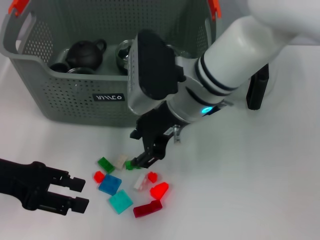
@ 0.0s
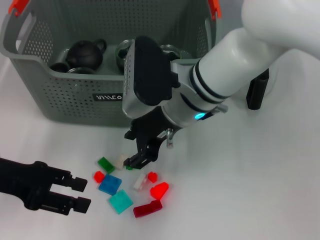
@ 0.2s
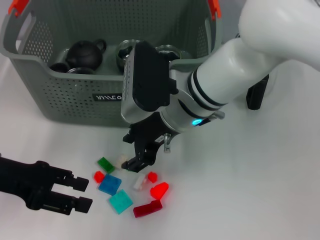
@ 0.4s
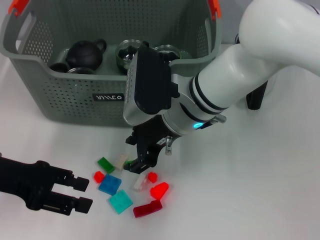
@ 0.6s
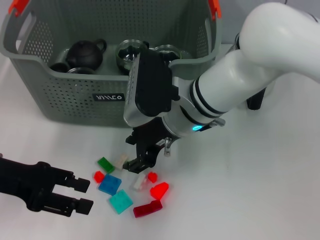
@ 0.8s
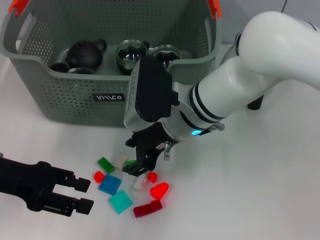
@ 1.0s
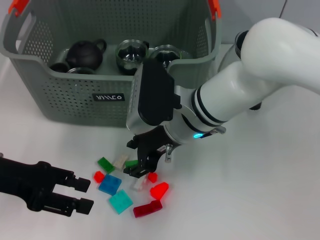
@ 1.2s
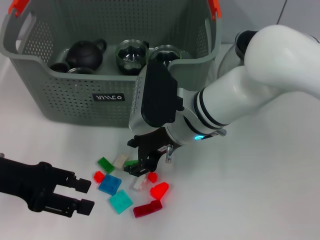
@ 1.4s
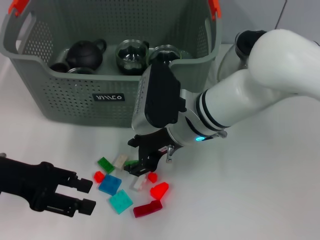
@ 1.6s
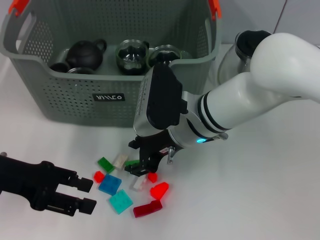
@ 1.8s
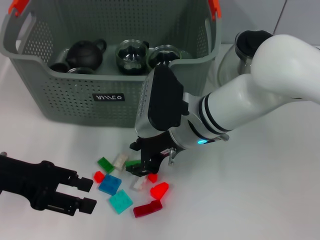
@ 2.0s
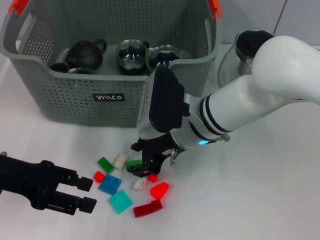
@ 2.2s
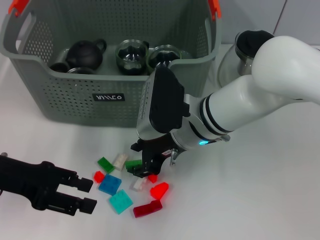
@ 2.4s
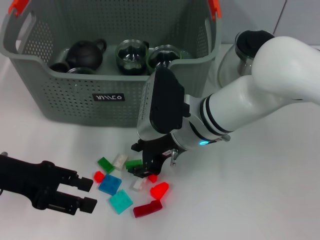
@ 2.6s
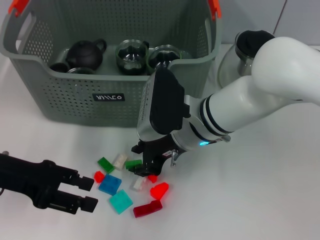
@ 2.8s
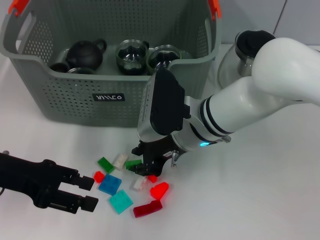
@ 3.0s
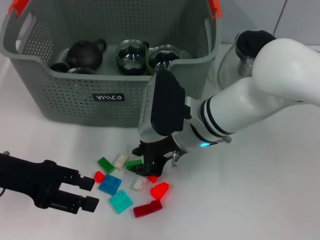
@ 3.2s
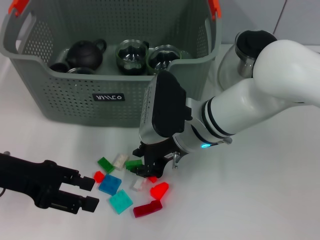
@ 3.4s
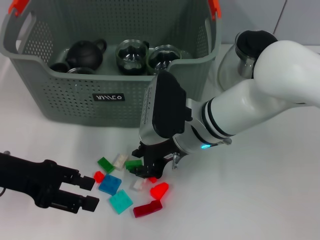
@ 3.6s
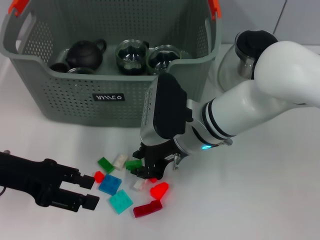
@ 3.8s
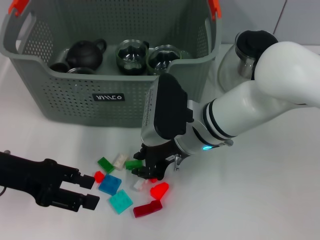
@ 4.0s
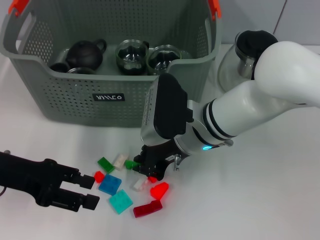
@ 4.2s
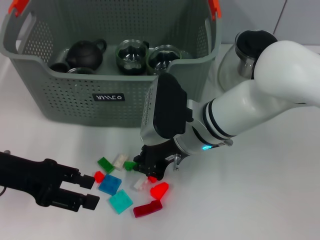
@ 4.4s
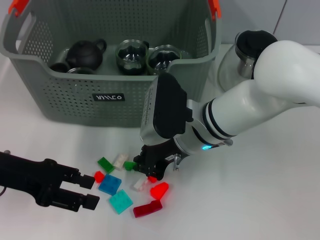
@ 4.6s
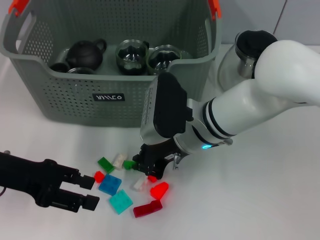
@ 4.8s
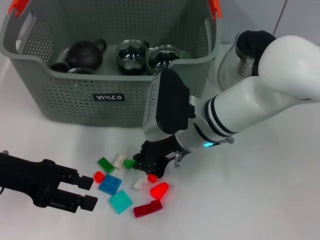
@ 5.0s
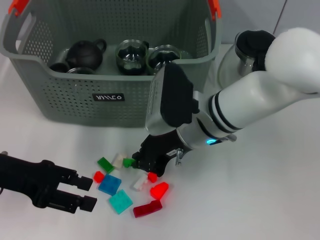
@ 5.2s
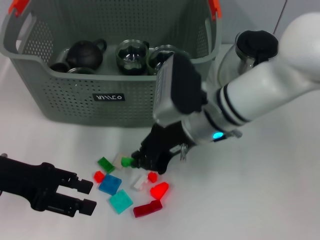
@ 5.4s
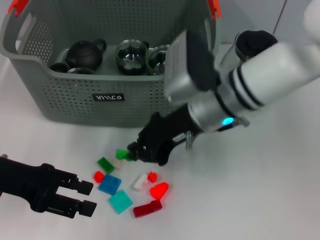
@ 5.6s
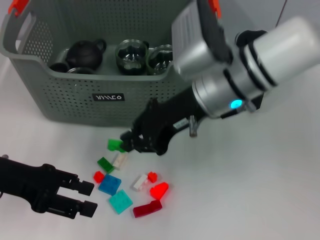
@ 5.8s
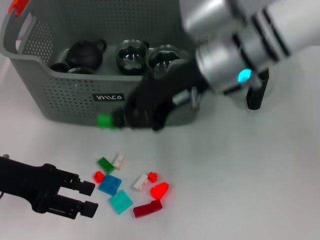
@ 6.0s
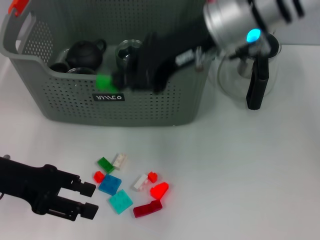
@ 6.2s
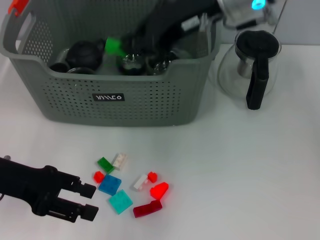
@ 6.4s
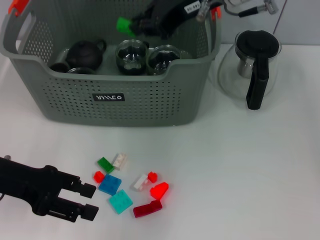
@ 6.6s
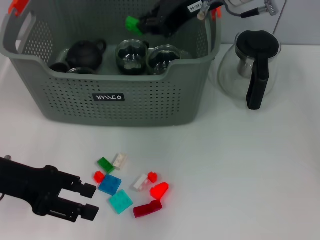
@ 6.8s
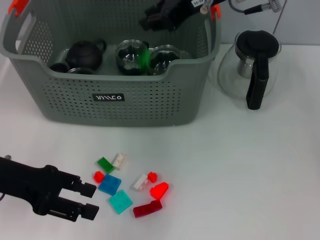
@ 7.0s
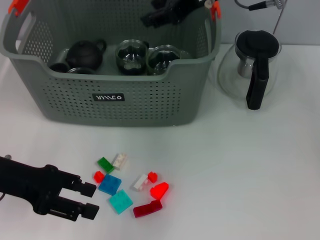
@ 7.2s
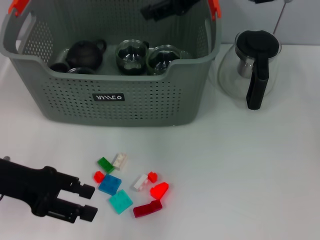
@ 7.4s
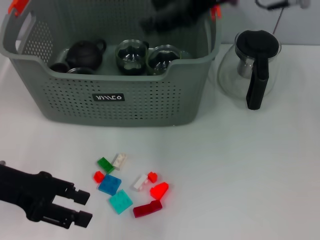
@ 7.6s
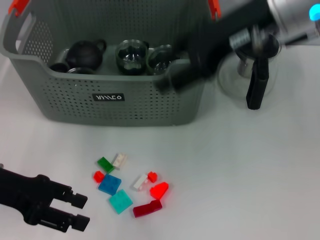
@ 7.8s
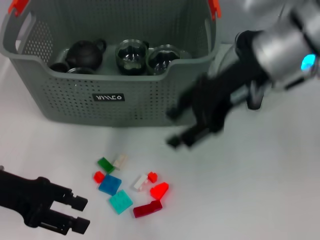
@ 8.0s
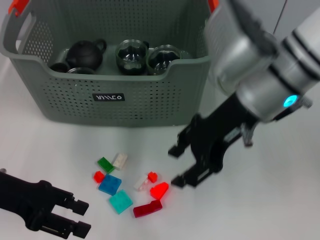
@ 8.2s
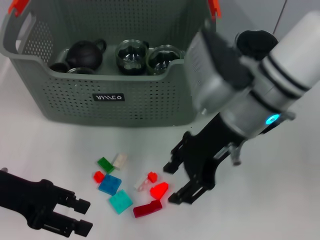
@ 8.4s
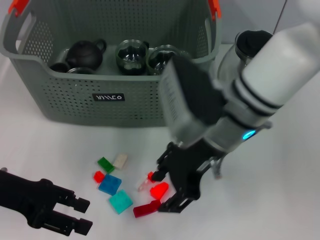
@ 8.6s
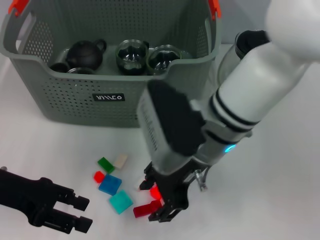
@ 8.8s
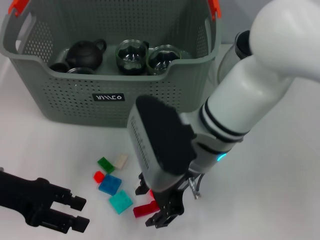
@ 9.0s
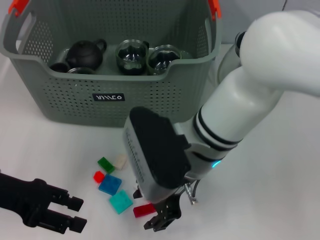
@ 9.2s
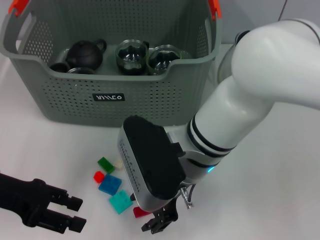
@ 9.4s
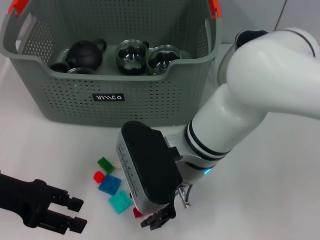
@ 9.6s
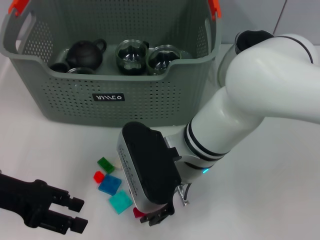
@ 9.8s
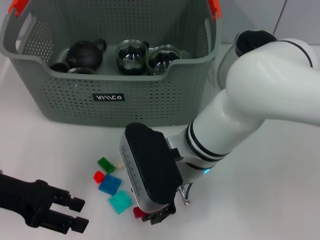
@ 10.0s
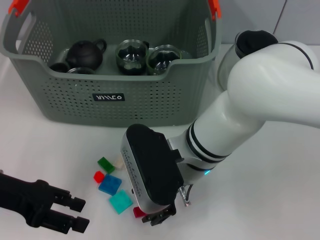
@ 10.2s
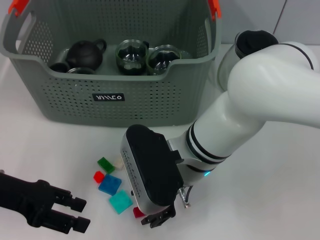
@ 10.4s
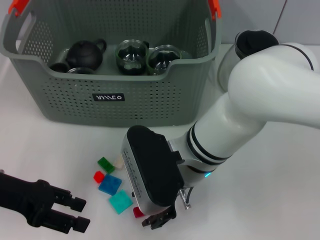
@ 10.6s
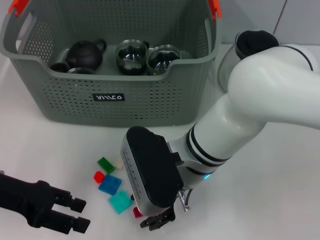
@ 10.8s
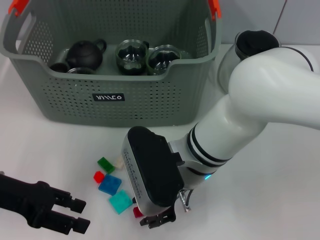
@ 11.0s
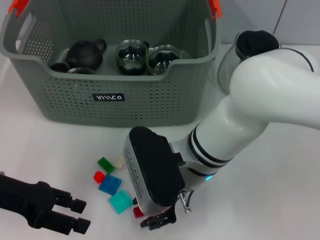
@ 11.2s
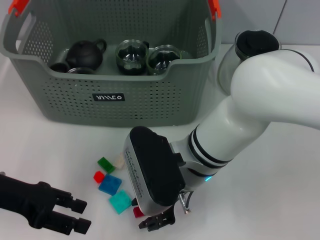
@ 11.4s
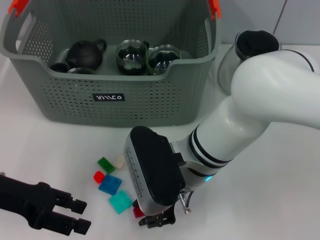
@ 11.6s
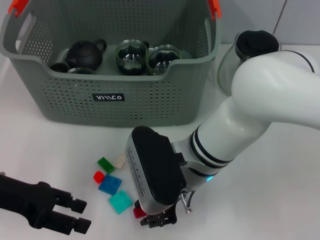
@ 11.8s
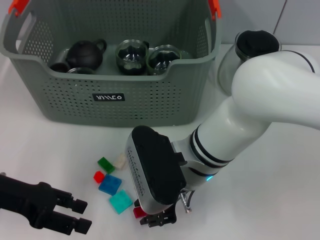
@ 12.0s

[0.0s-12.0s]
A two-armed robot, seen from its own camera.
Task of the whole recording: pick up the teacup on the table and place it into the storage bin, pick up the block on the table and place it into the storage bin.
Step, 0.0s to 5.4s: Grasp the green block with right gripper.
Step, 5.6s to 7.0s: Place the green block in the storage box with right gripper.
0.0s to 1.6s: The right gripper travels downward by approximately 5 cm.
1.6s to 3.0s: Both grippers stay put.
3.0s to 4.4s: Both grippers stay put.
4.4s to 6.0s: The right gripper moves upward, some 15 cm.
6.0s to 7.6s: The right gripper is displaced upward, forward and to the right by approximately 10 cm, and opens up.
7.6s to 9.0s: The right gripper is displaced downward, backward and to the left by roughly 20 cm.
10.4s to 12.0s: Both grippers stay put.

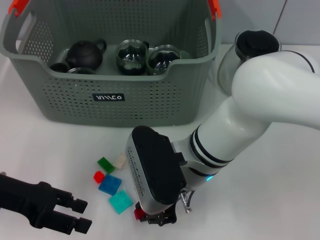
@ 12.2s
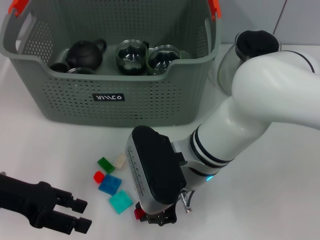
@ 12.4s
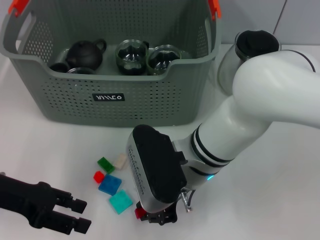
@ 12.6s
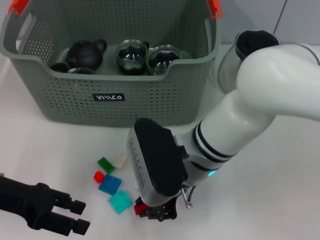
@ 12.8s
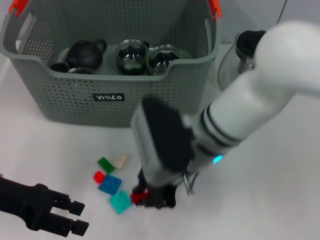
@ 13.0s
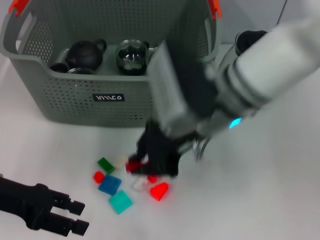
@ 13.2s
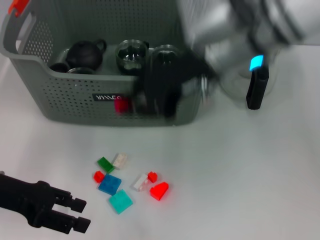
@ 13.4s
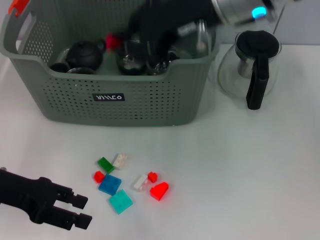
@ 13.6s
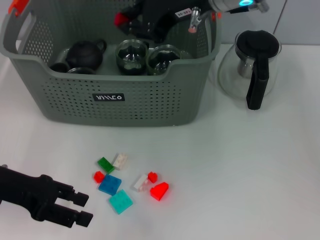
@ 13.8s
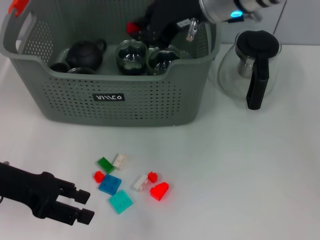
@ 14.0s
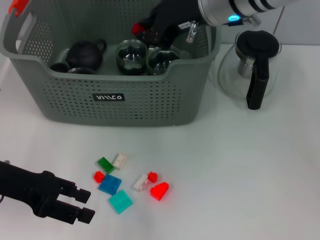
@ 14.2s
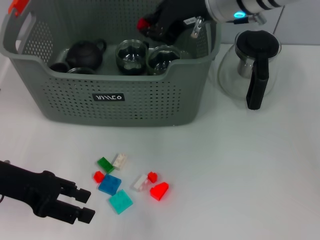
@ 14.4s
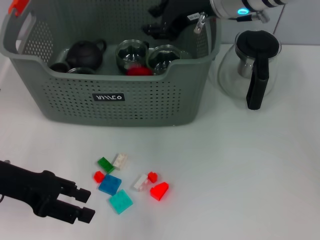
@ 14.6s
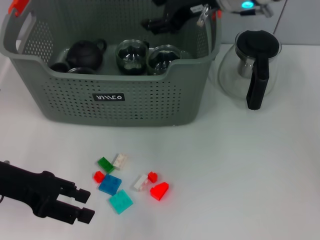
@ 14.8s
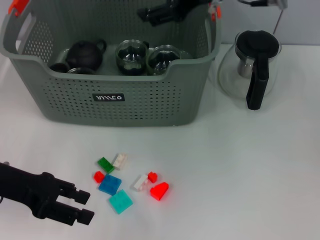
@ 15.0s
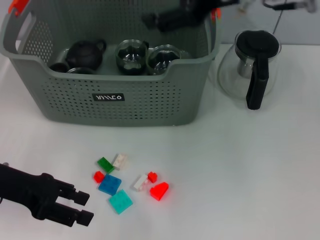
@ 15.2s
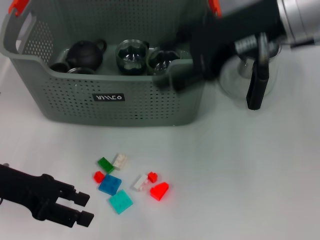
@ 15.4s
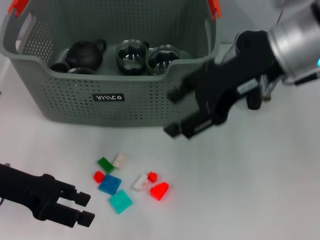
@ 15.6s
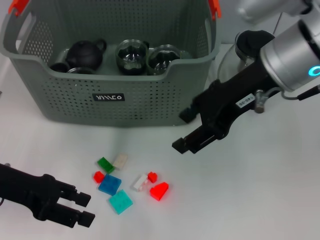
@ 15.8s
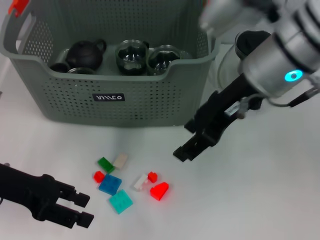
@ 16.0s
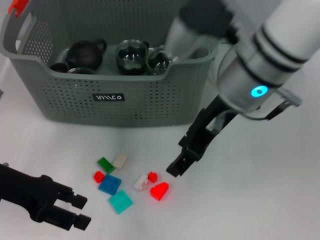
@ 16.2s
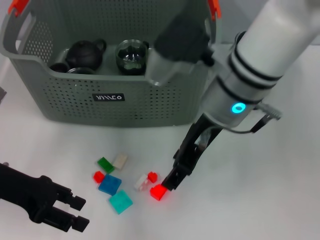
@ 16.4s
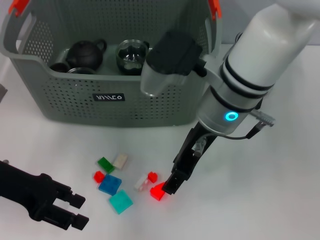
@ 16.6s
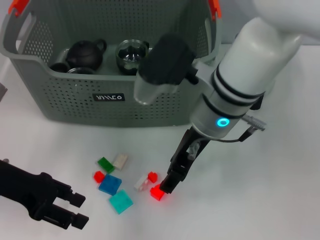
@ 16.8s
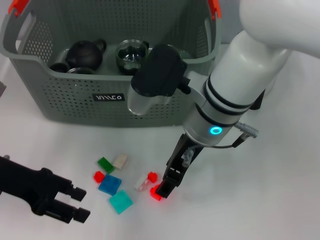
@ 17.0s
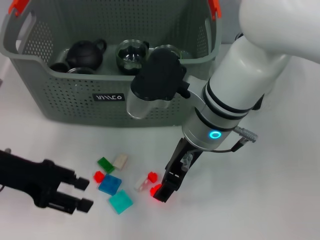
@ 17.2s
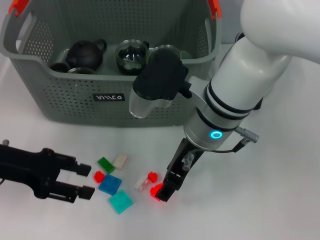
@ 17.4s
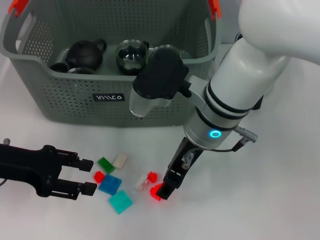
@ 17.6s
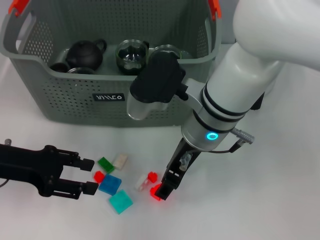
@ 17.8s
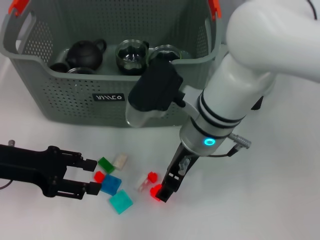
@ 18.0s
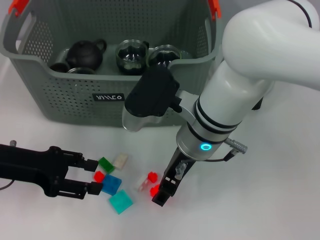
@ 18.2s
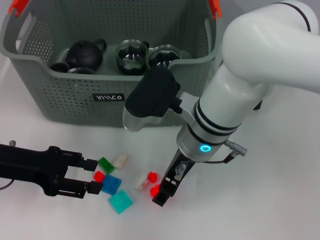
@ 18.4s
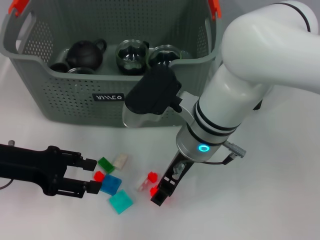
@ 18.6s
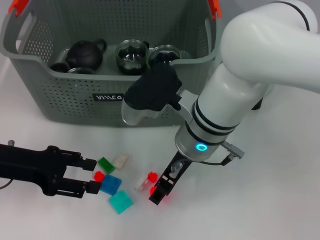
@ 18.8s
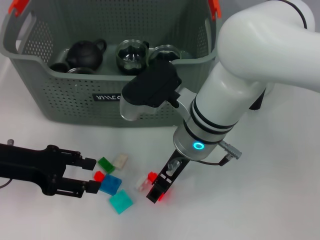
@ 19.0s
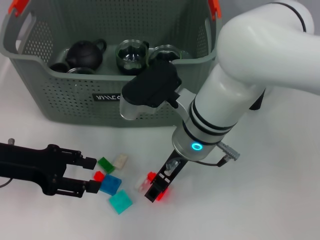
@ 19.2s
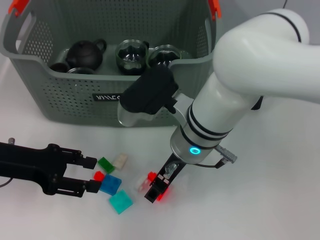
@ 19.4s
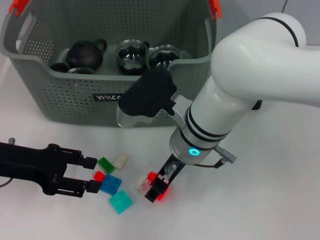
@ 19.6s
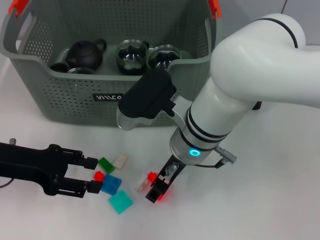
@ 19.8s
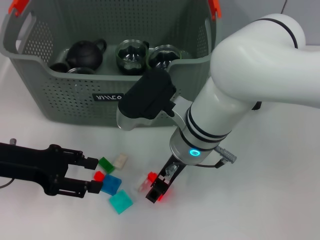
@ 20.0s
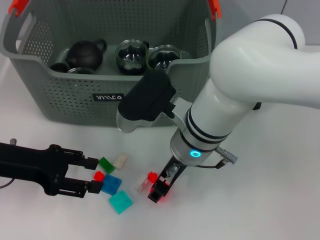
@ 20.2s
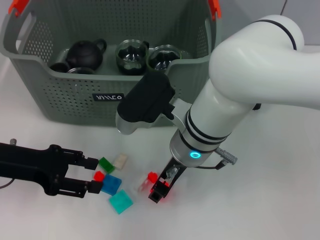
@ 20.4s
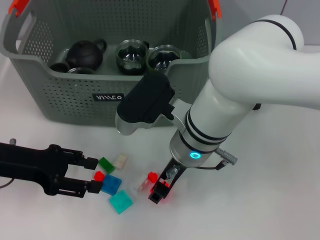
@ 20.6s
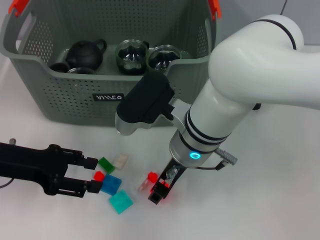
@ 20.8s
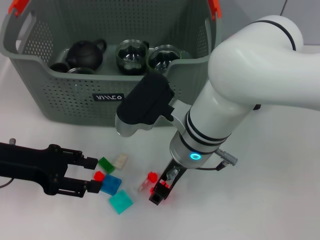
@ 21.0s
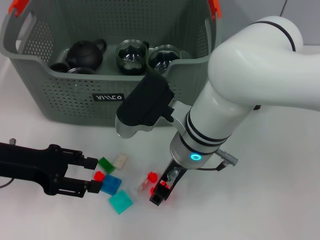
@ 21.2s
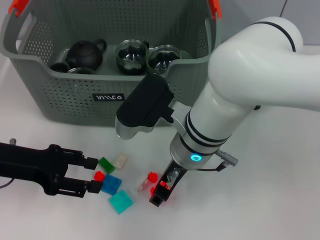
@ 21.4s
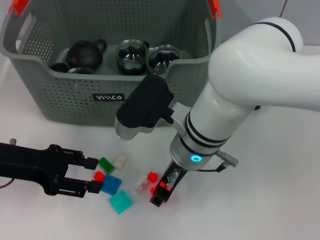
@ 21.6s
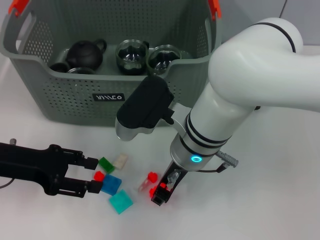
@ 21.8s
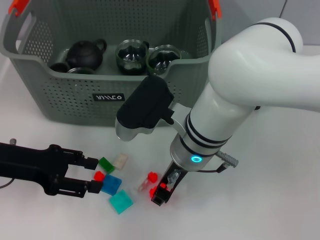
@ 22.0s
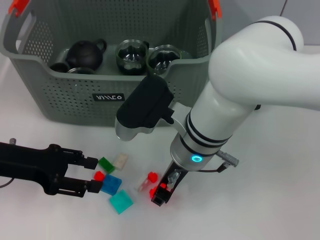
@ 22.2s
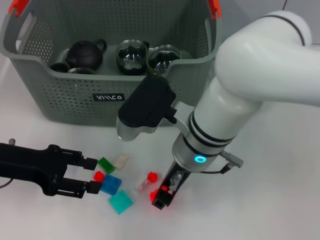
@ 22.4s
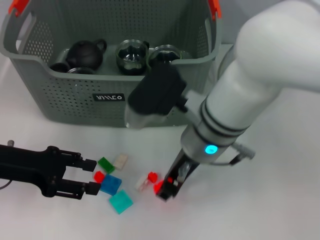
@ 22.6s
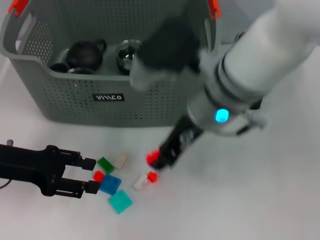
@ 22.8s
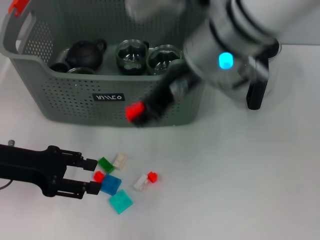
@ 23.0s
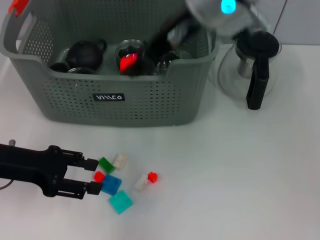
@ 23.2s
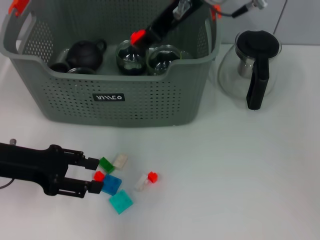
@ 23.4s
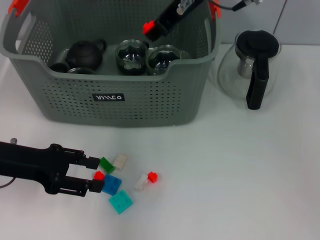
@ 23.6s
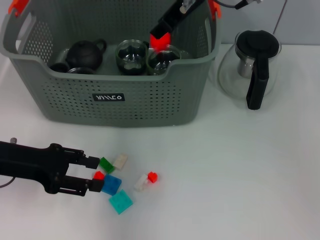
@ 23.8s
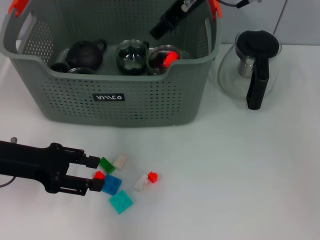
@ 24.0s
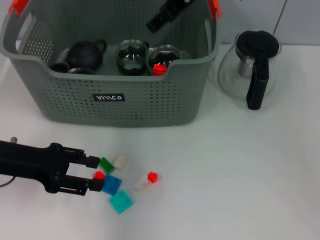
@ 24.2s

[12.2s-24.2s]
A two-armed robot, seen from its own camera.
Task of the whole recording: pick up the teacup on the table and place it into the storage bin, pick up the block on the table and place it into the storage bin.
Step, 13.0s to 14.6s: Place the red block in the storage box with right gripper.
Step, 14.8s to 22.4s: Grasp the orange block with right gripper.
Step, 22.8s to 24.0s: Place the orange block in the storage box with right gripper.
12.2s to 13.8s: The right gripper moves upward and forward, roughly 20 cm.
13.8s to 15.2s: The right gripper moves to the right, approximately 5 cm, and opens its fingers.
15.2s to 16.6s: The right gripper moves downward and to the left, approximately 15 cm.
16.6s to 18.2s: The right gripper moves approximately 5 cm.
18.2s to 19.8s: The grippers stay close to where they were, moving slightly.
19.8s to 21.2s: The two grippers keep their place.
21.2s to 22.6s: There are only small adjustments of the grippers.
22.6s to 24.2s: The right gripper is displaced upward and forward by approximately 20 cm.
